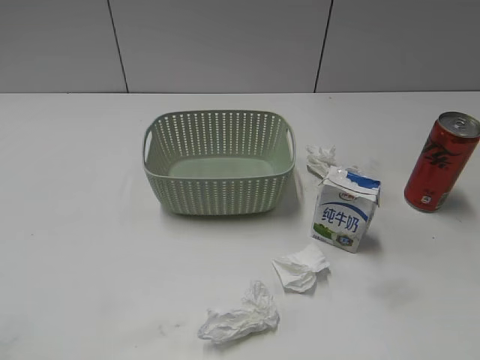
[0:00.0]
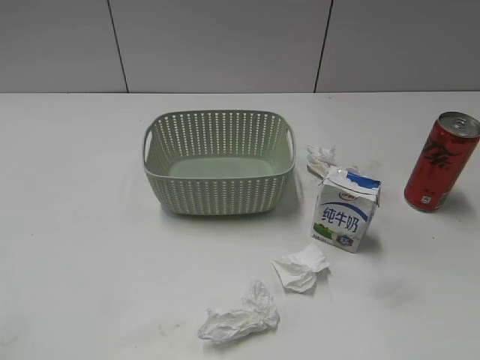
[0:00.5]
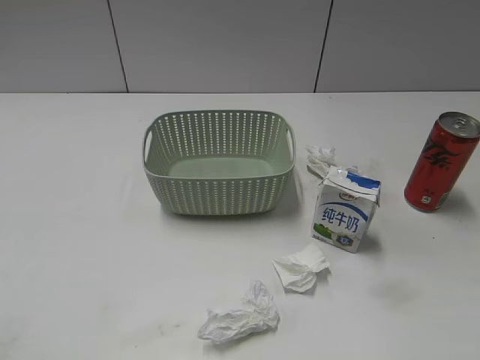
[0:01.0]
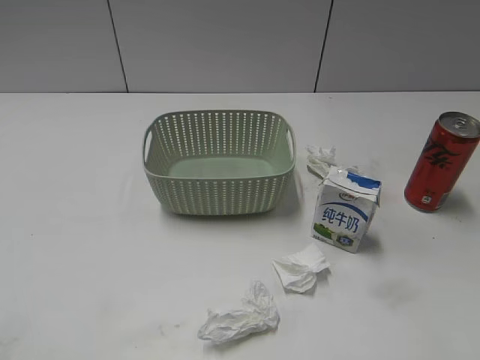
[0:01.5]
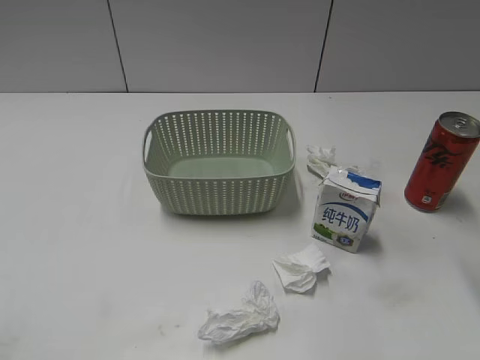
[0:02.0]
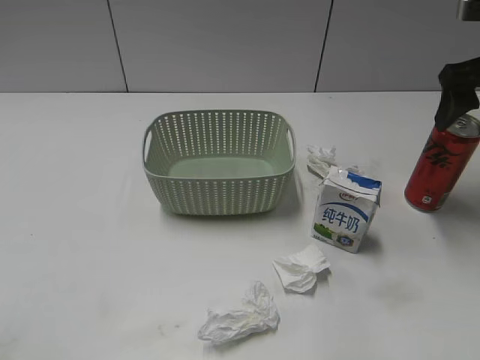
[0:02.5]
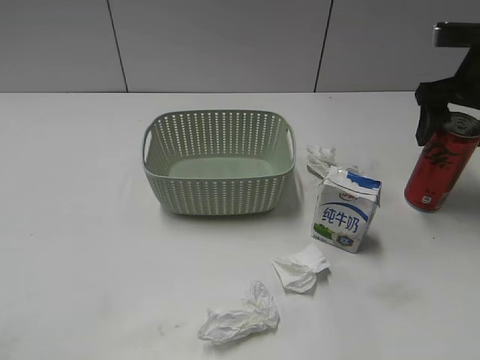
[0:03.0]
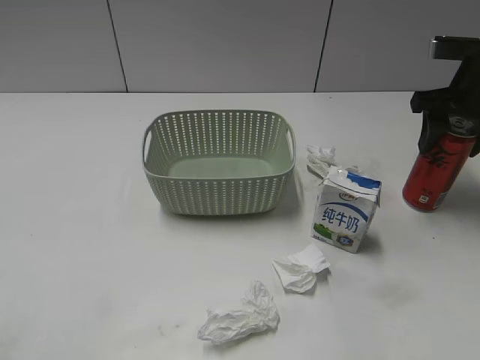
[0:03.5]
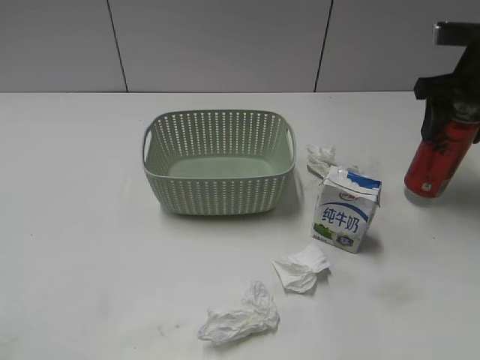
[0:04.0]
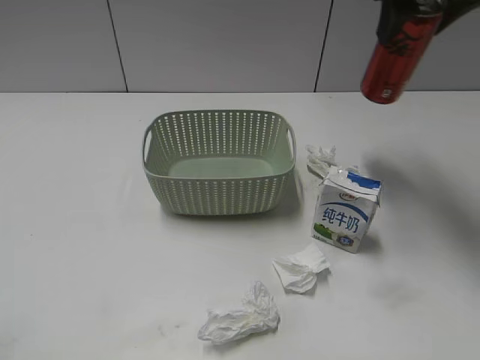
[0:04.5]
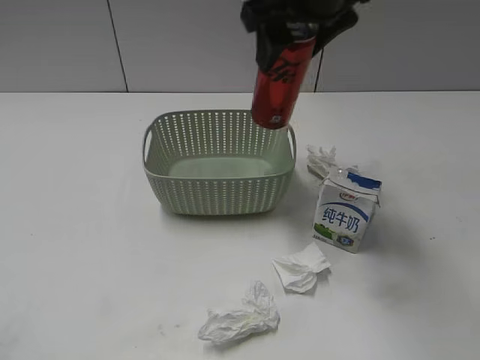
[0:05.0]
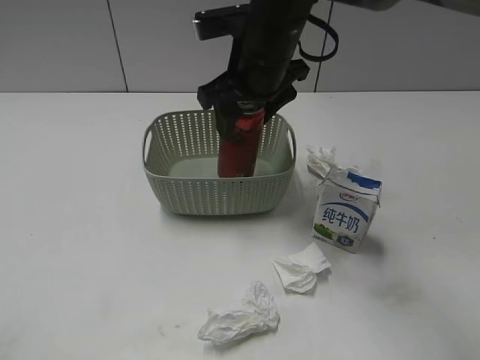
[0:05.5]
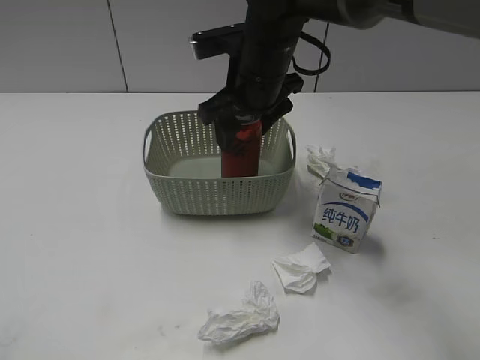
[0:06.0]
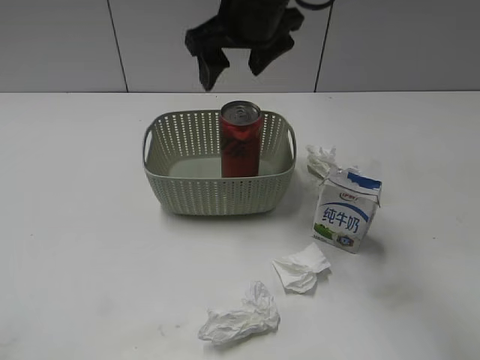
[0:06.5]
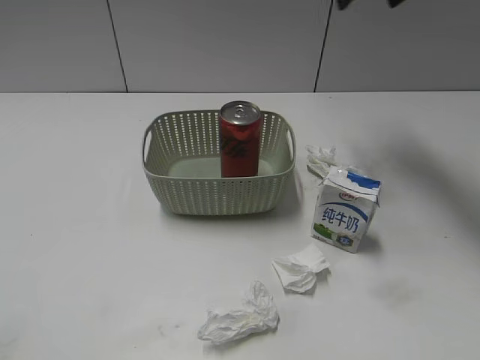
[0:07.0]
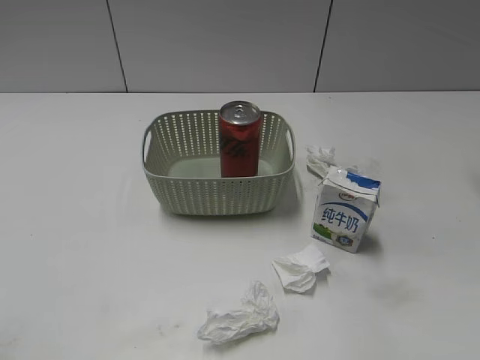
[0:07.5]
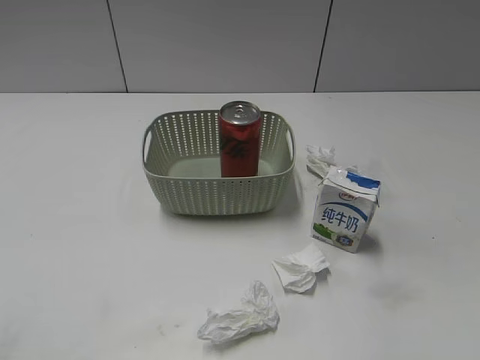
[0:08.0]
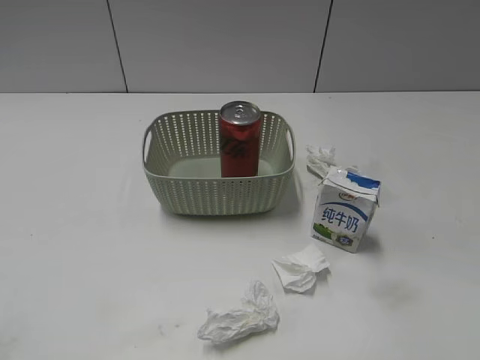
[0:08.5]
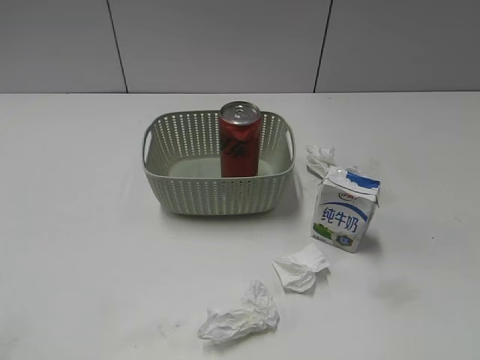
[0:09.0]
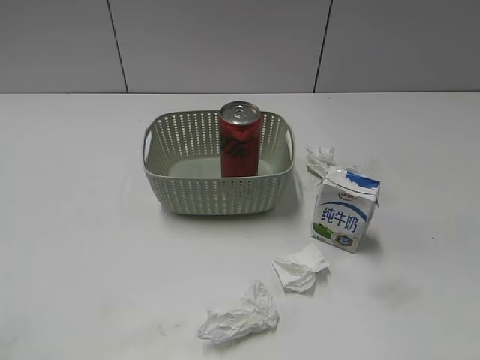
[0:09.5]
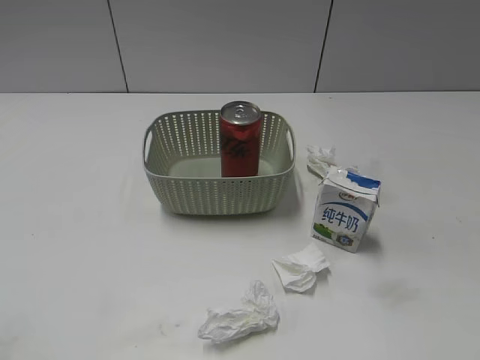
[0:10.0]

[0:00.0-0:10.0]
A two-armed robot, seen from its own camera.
Step, 0:02.5 to 0:03.5: Grasp the cola can with right gripper.
Step, 0:04.0 to 0:06.0: Place the cola can in the basket with right gripper.
0:02.0 to 0:04.0: The right gripper goes about 15 cm forward and downward, and closes.
0:04.0 to 0:06.0: The right gripper heads to the left, covering roughly 25 cm.
0:06.0 to 0:08.0: The right gripper moves to the right, approximately 30 cm, and opens.

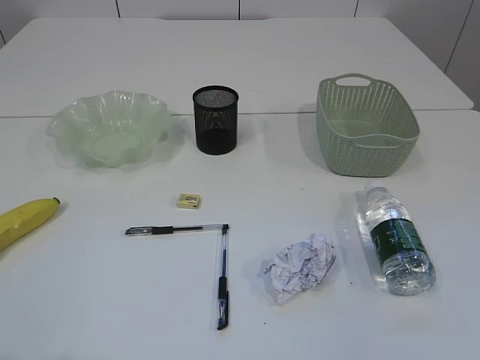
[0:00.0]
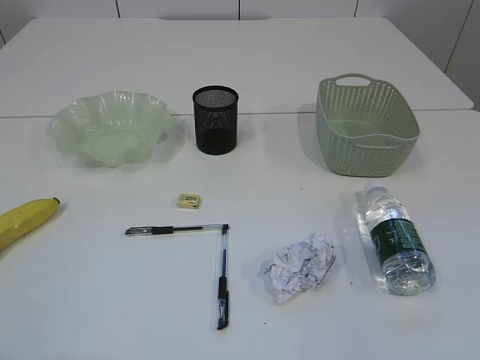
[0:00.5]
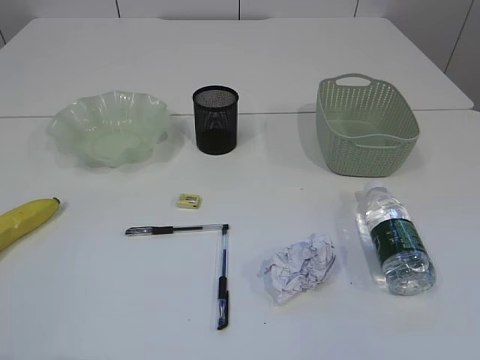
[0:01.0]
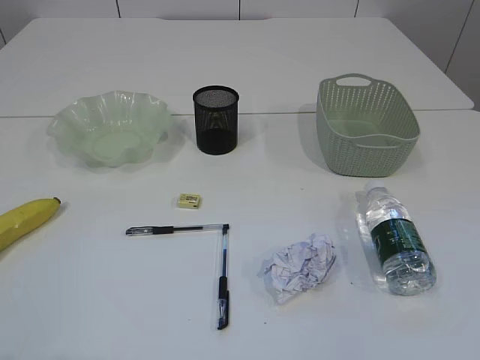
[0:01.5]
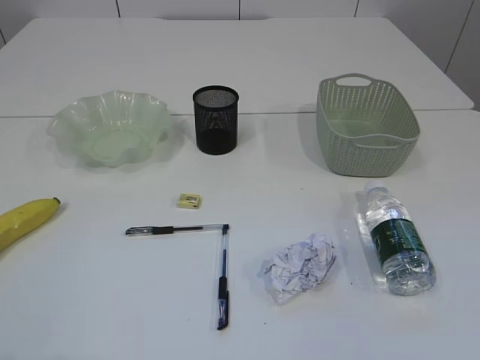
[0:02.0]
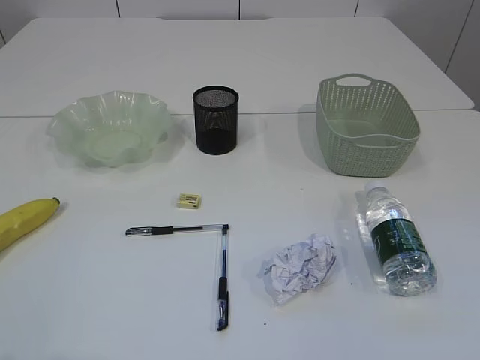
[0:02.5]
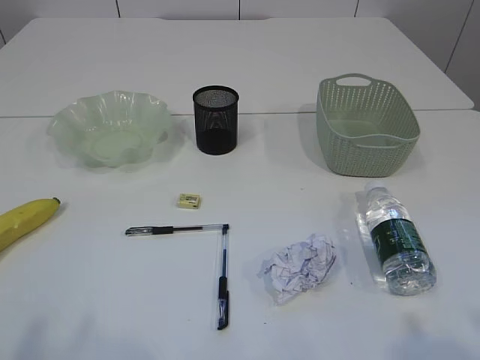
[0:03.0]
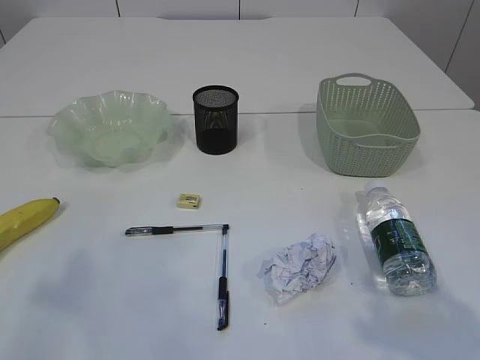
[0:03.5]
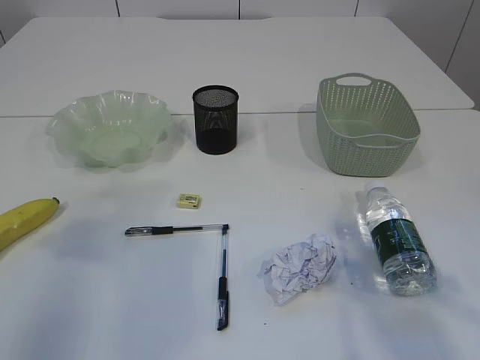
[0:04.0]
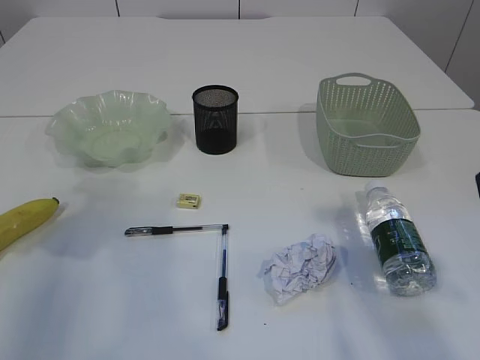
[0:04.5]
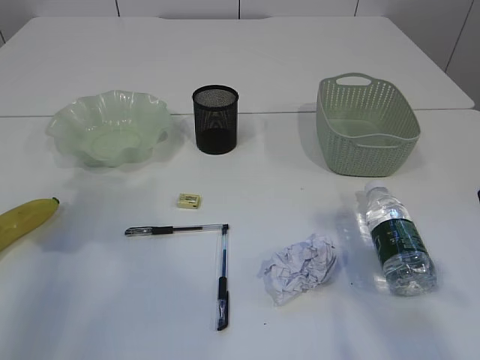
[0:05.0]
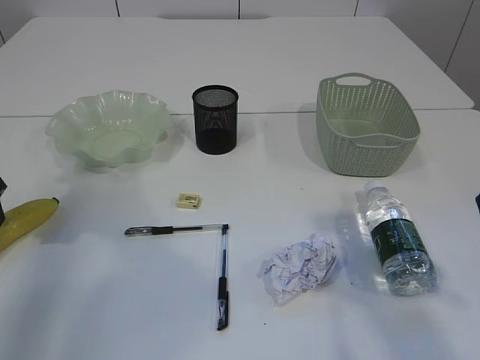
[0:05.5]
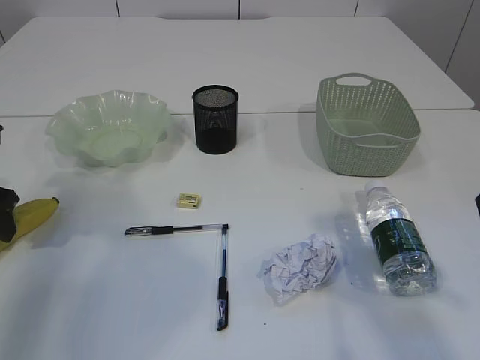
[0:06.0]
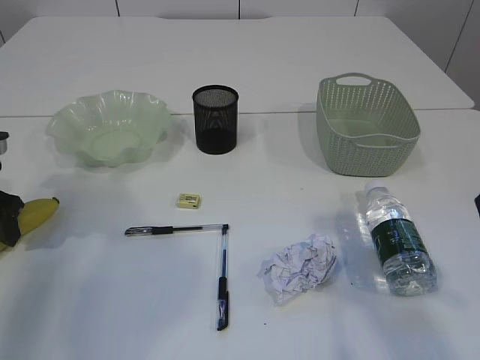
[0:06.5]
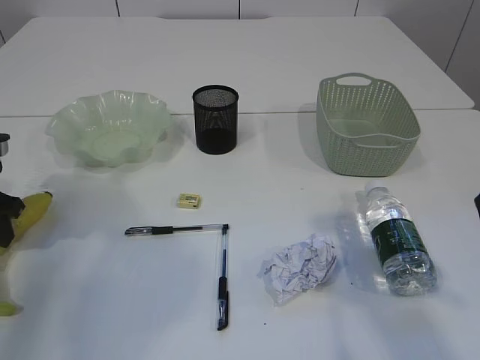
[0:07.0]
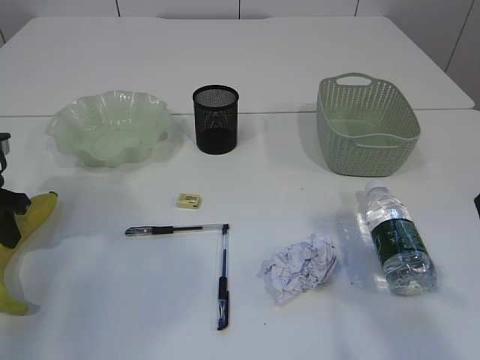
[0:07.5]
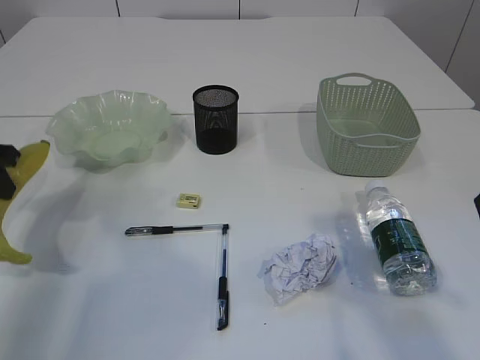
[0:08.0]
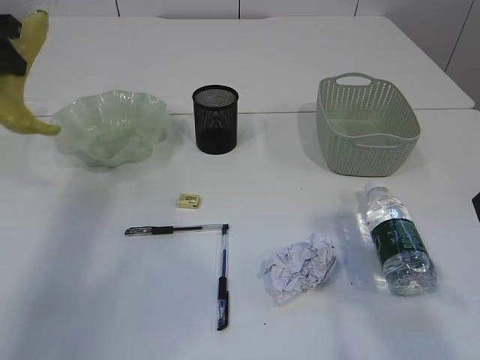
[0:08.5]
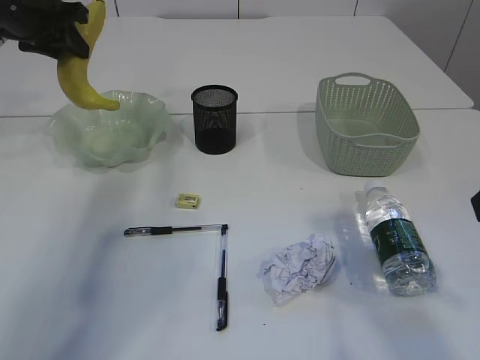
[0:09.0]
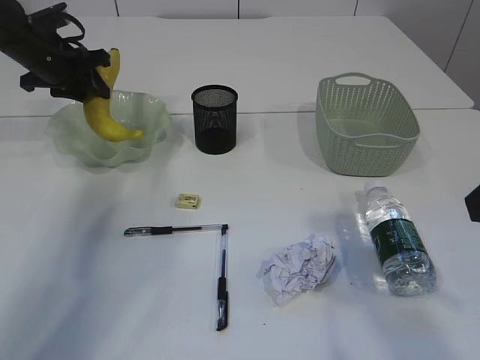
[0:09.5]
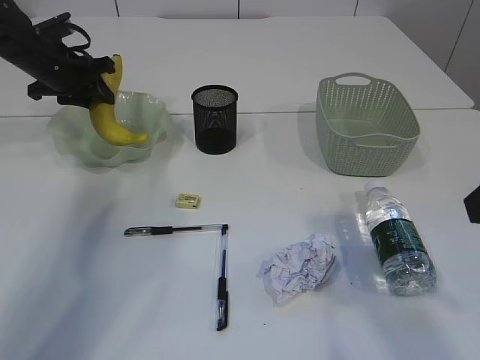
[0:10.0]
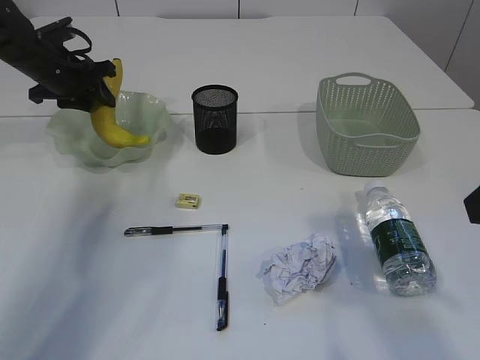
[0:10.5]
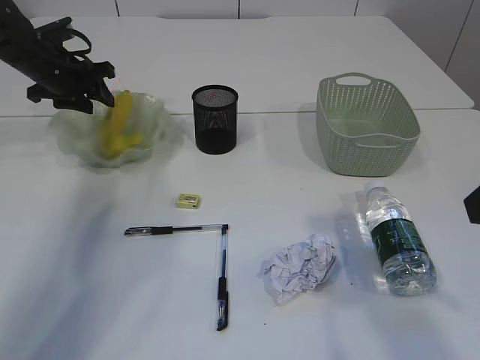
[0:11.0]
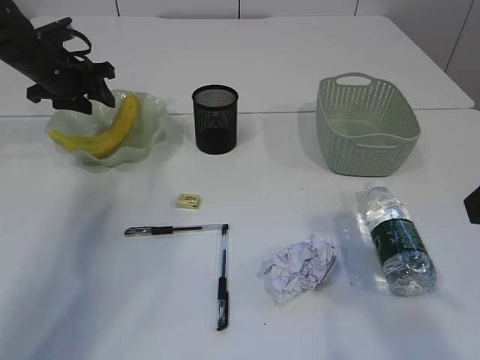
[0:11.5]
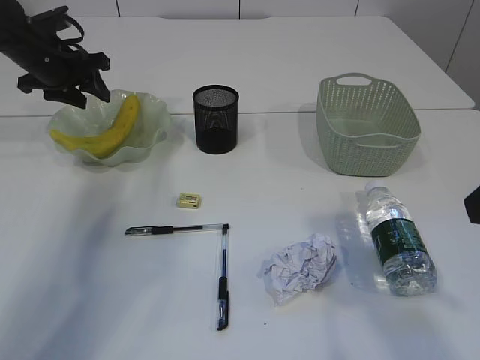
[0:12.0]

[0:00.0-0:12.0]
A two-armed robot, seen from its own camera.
0:02.0 to 0:04.0: The grippers both shift forward by some 20 cm.
0:04.0 to 0:06.0: The left gripper heads downward and forward, covering some 25 cm.
0:06.0 to 0:08.0: The left gripper closes.
0:08.0 to 0:10.0: The left gripper shifts about 20 cm forward.
0:10.0 to 0:12.0: There are only small adjustments of the grippers.

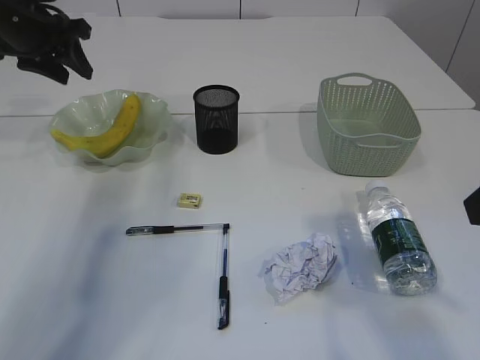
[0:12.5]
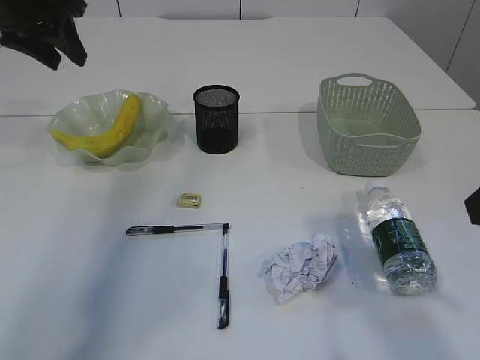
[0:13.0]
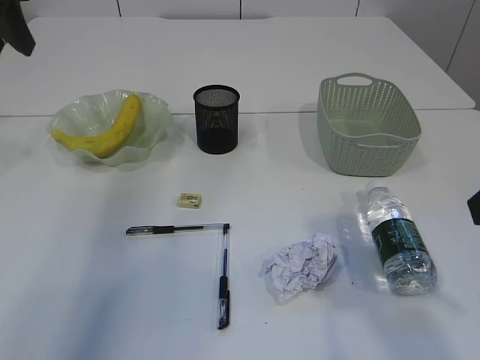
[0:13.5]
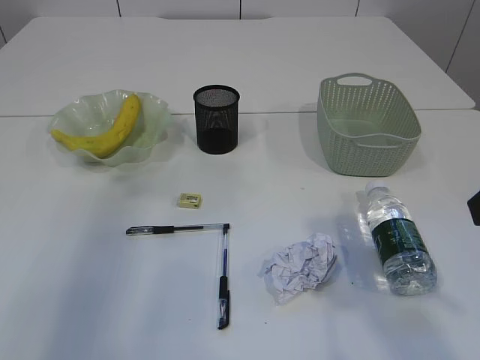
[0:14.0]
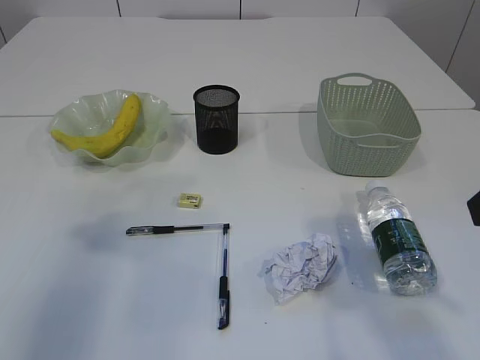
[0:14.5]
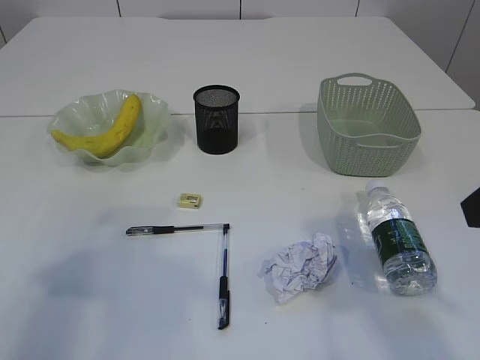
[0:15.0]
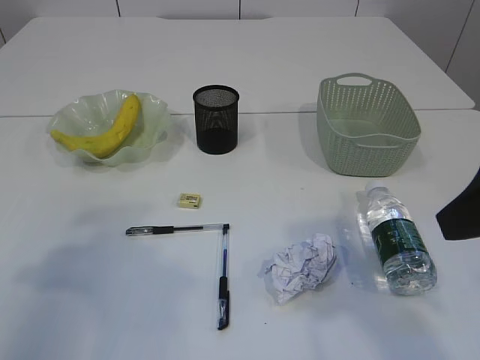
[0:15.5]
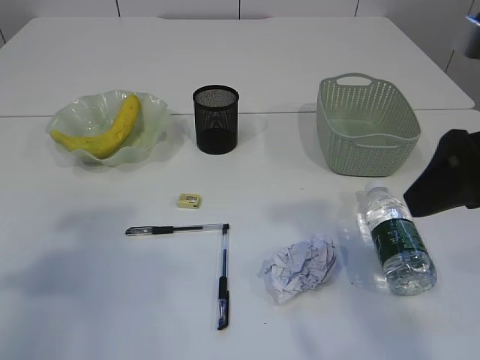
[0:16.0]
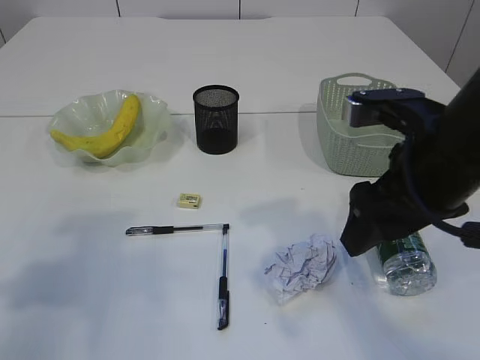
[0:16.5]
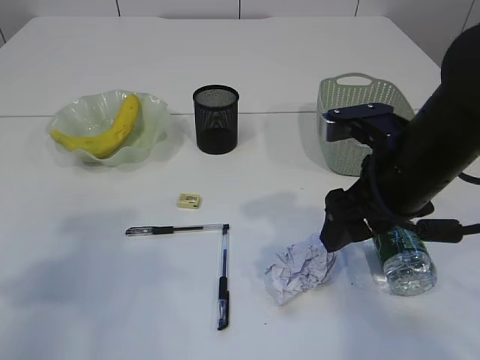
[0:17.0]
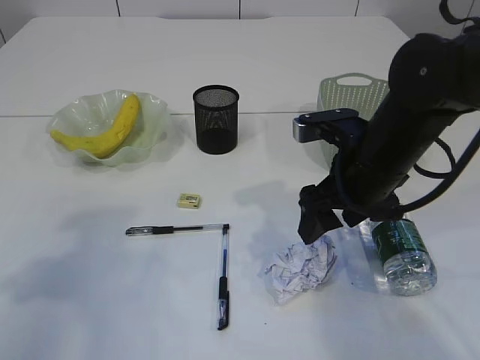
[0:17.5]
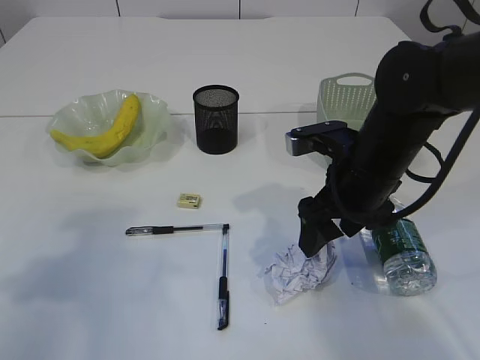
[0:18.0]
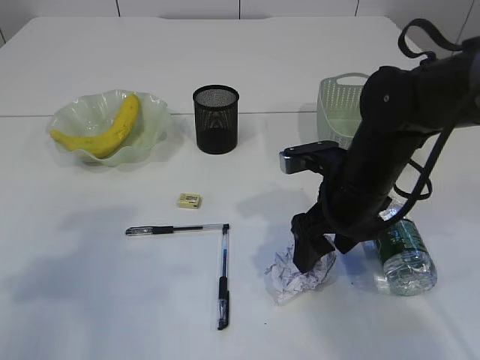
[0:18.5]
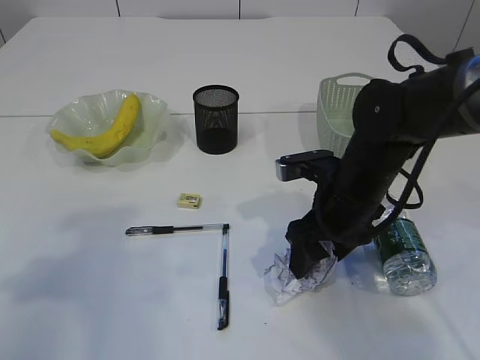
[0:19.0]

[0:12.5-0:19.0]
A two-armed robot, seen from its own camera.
0:12.5 to 0:14.5: The left gripper heads backward, covering roughly 25 cm.
0:14.5 to 0:17.0: The right gripper is displaced forward, downward and to the left by about 15 cm. The left gripper changes place by some 5 cm.
0:17.0 to 0:19.0: The right gripper heads downward, covering some 10 cm.
